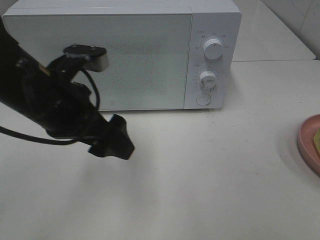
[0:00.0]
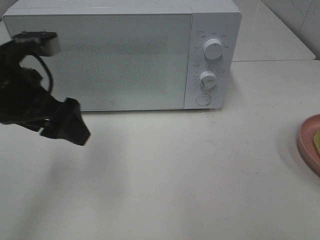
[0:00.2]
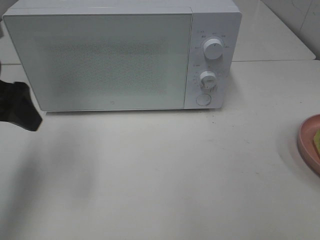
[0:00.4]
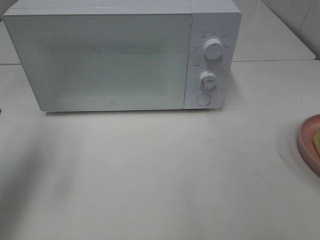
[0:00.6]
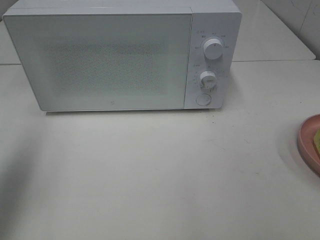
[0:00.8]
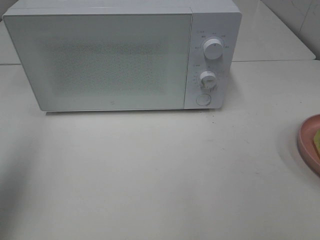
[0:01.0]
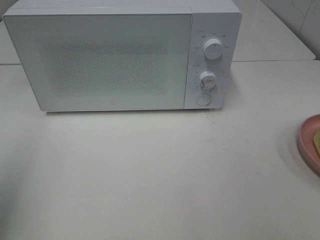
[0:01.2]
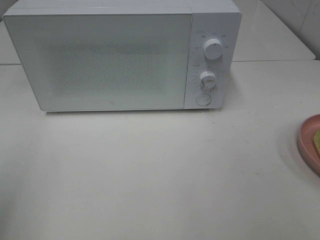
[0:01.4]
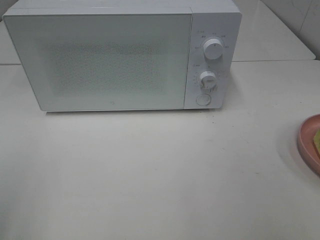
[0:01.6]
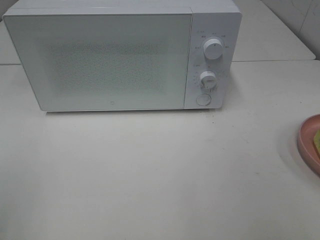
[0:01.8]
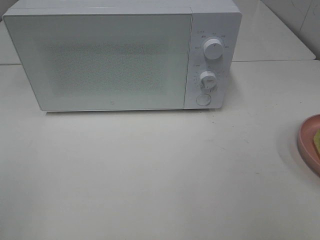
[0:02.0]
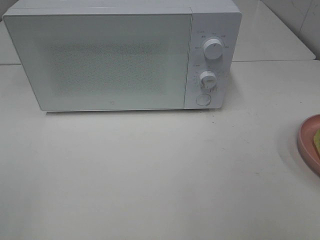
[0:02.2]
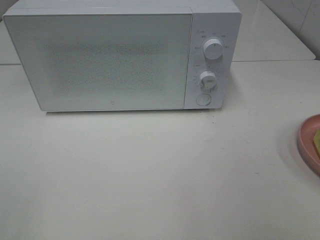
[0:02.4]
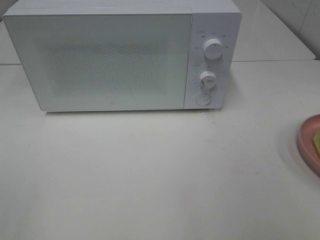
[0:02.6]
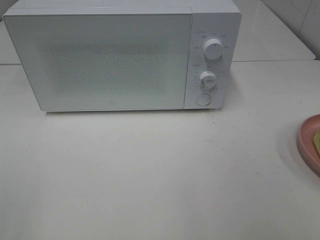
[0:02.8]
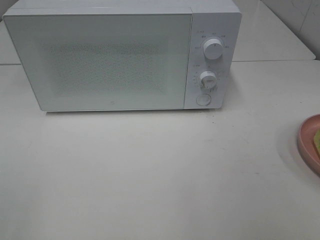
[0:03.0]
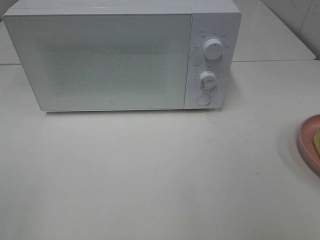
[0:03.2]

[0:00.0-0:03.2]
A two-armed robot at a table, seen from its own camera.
Task of the whole recording: Heat Sandwich.
0:00.0 to 0:01.6: The left gripper is displaced to the left, backward and upward by roughly 25 cm.

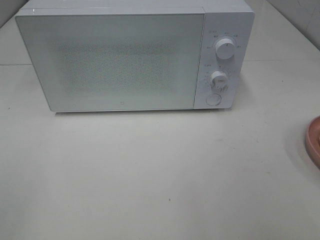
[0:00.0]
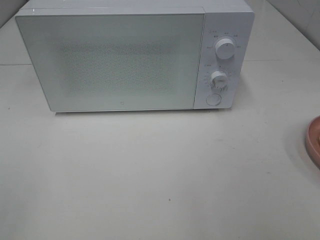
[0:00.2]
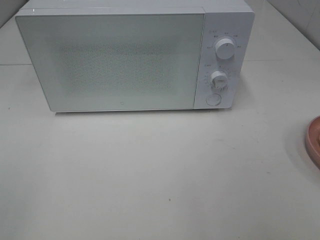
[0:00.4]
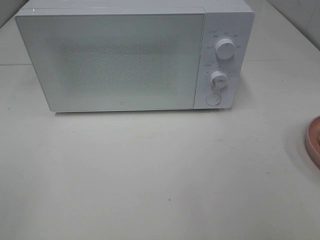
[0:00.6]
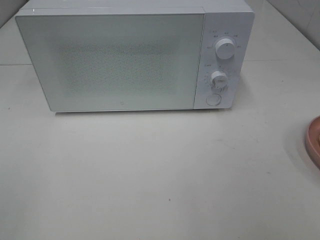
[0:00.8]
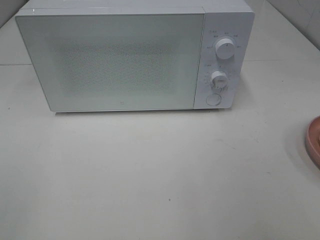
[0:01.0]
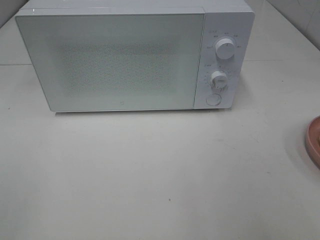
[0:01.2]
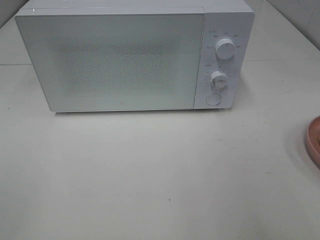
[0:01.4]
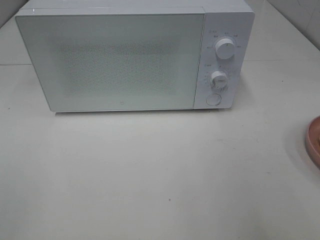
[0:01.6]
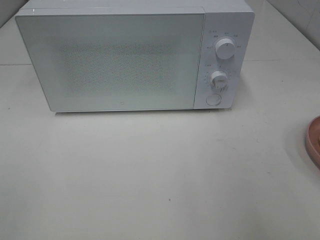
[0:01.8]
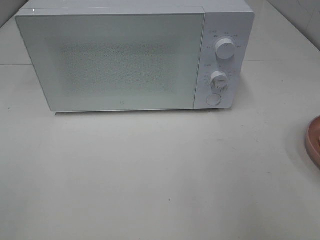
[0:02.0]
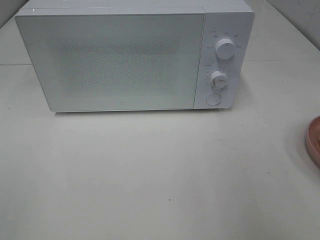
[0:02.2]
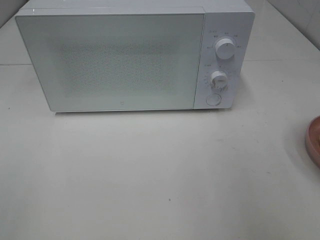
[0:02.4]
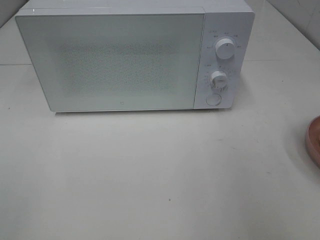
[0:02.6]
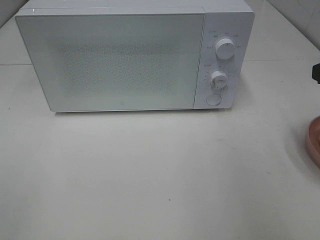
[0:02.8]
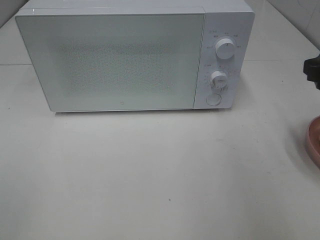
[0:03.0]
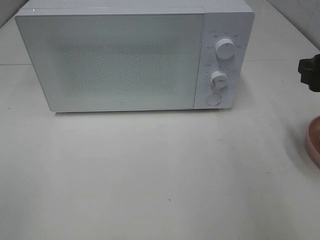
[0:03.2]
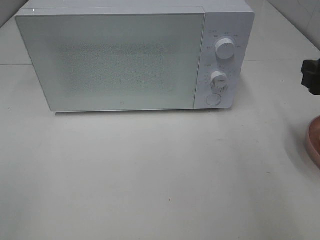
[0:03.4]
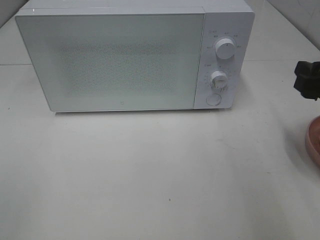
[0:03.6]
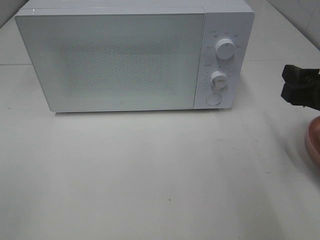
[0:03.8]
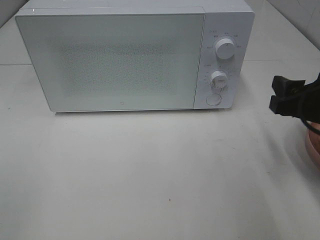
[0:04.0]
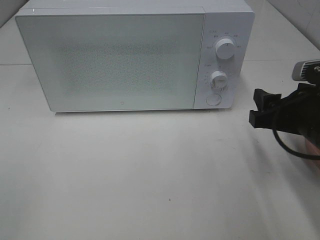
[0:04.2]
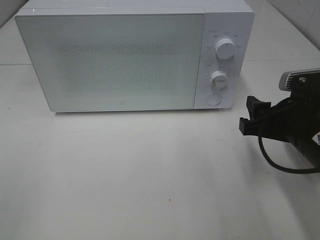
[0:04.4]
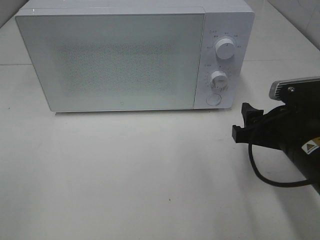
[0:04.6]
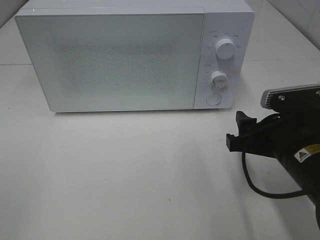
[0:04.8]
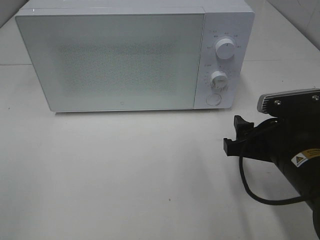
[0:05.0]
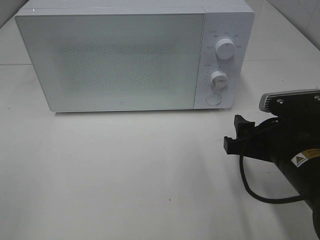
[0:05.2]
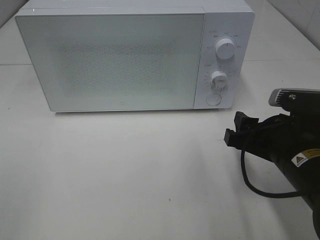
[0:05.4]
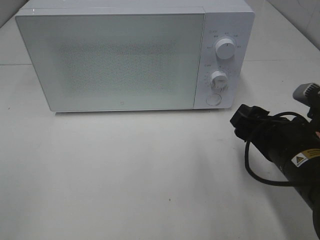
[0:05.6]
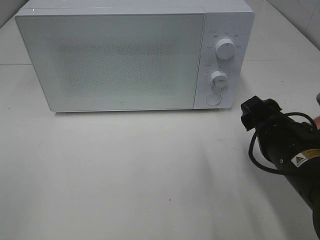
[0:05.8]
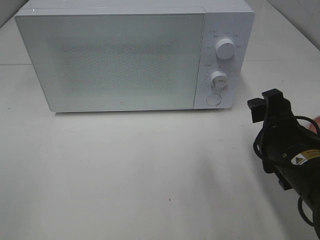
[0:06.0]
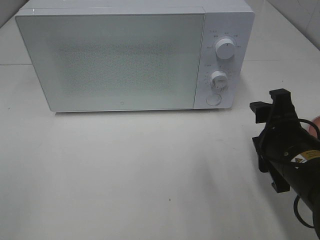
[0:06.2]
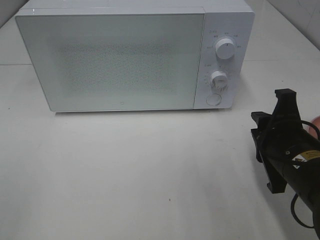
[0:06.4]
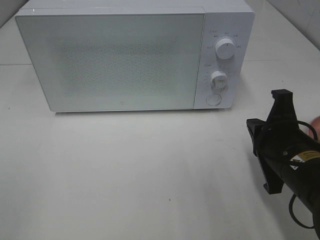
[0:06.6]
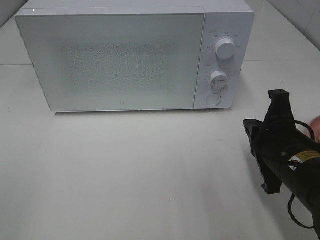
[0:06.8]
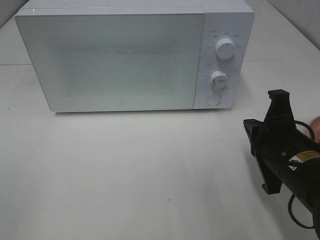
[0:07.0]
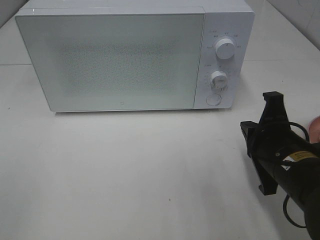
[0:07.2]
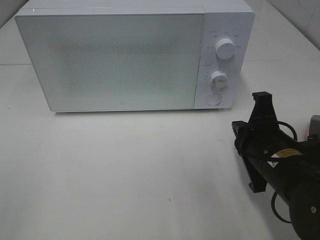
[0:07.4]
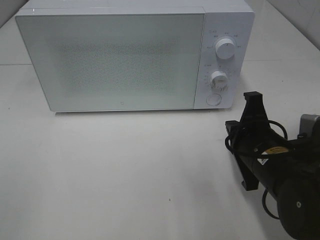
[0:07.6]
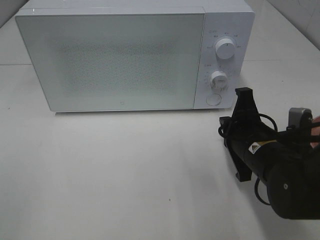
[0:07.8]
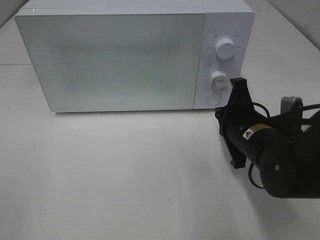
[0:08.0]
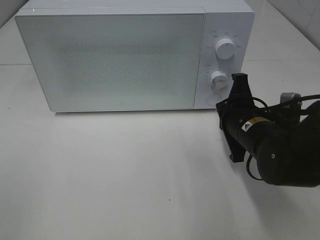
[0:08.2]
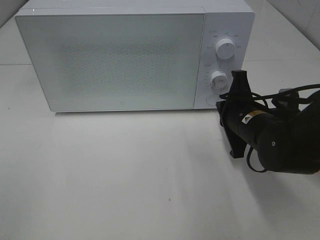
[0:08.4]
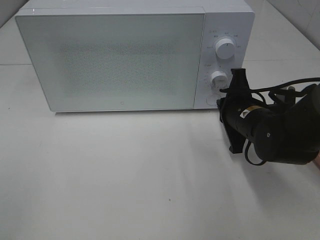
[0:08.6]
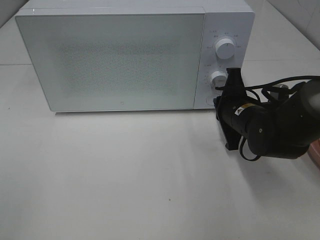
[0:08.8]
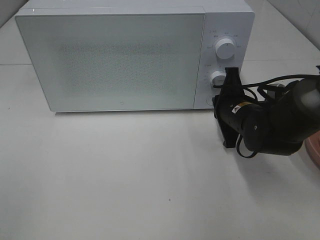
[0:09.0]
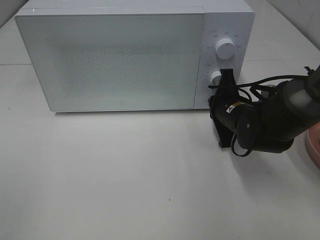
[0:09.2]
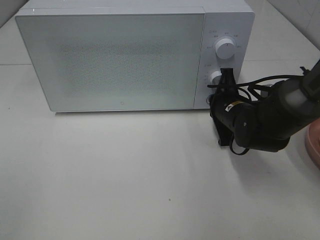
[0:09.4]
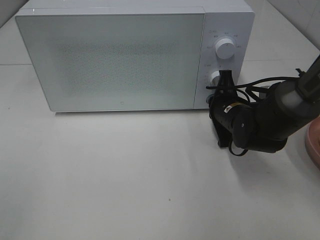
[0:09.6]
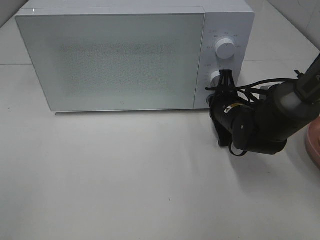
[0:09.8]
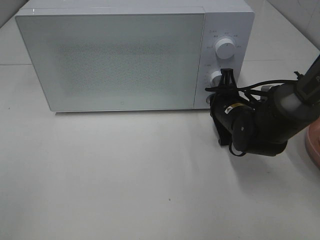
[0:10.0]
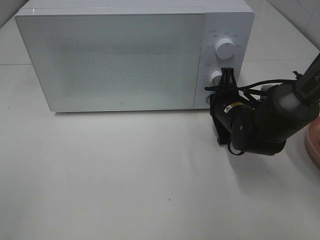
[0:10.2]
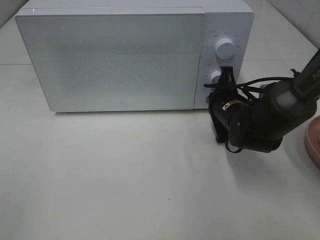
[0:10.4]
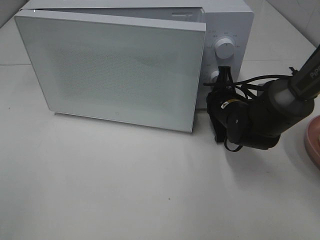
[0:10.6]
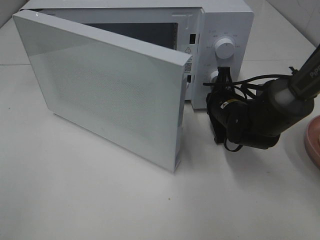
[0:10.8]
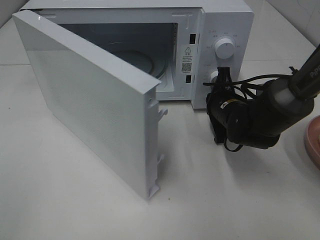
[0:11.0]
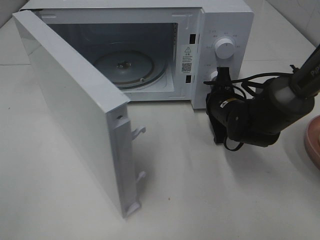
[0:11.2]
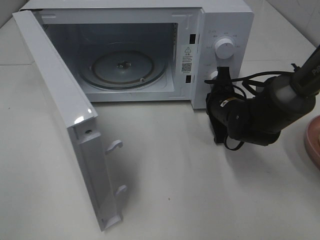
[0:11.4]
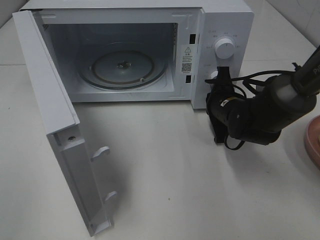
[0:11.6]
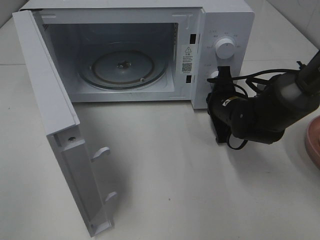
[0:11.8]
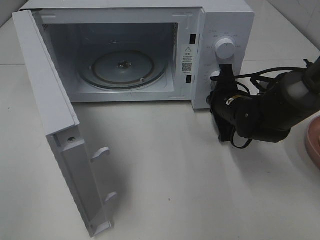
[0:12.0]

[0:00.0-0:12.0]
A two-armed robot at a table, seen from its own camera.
Task of the whole recording: Heat Sandwich.
0:01.6 to 0:03.0: The right gripper moves forward, about 15 cm.
0:03.0 to 0:04.4: The right gripper moves downward and to the left, about 10 cm.
0:06.0 to 0:07.6: The right gripper closes.
0:07.6 to 0:09.0: The right gripper heads forward, covering about 10 cm.
0:09.0 to 0:10.4: There are only small adjustments of the grippers.

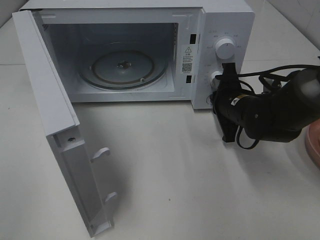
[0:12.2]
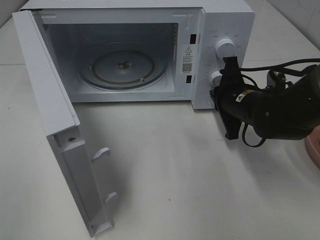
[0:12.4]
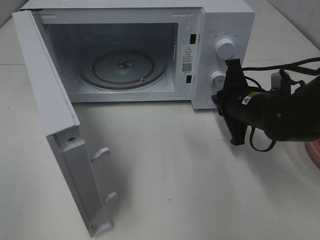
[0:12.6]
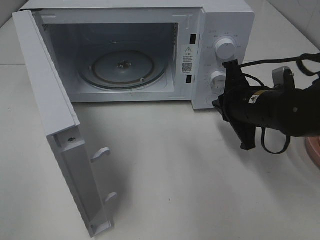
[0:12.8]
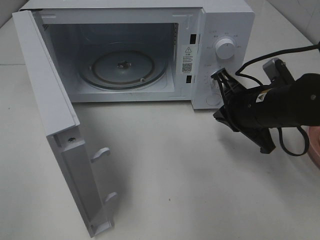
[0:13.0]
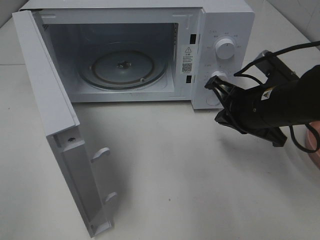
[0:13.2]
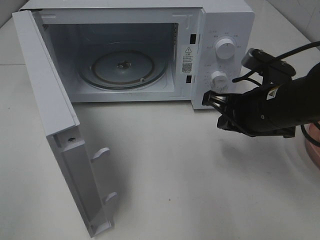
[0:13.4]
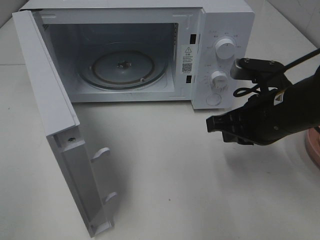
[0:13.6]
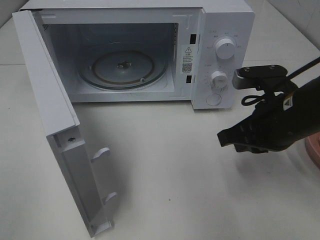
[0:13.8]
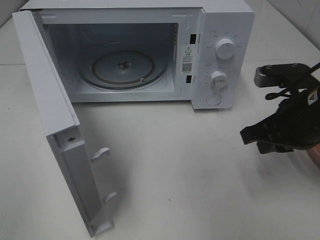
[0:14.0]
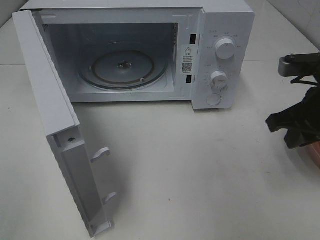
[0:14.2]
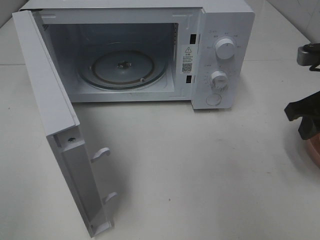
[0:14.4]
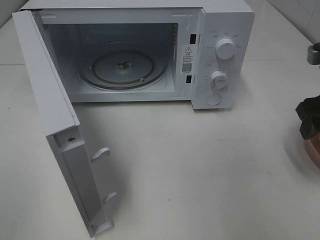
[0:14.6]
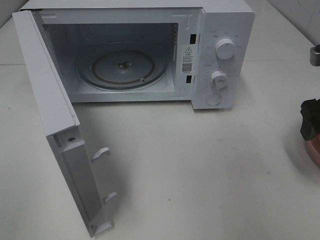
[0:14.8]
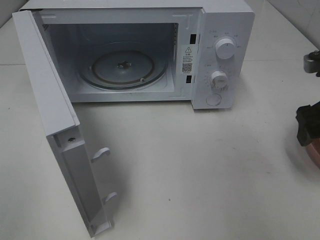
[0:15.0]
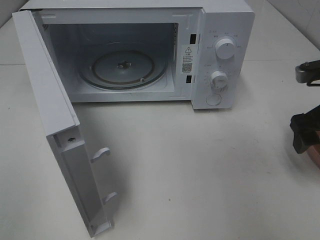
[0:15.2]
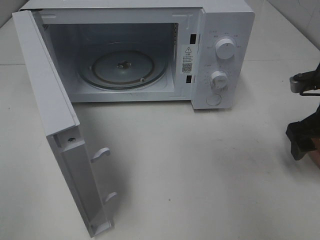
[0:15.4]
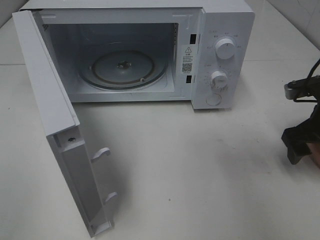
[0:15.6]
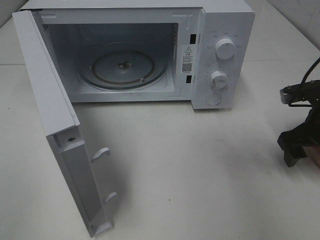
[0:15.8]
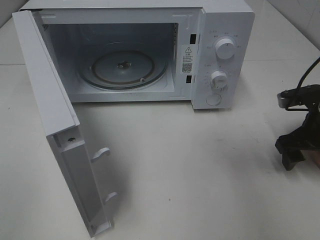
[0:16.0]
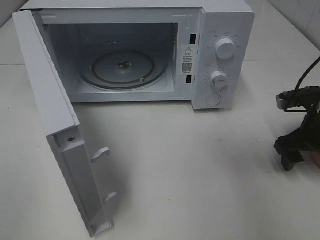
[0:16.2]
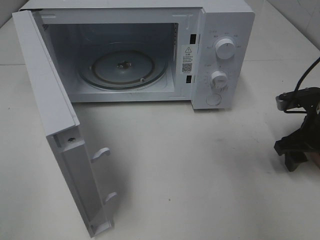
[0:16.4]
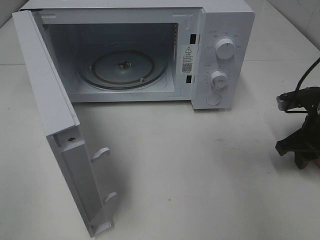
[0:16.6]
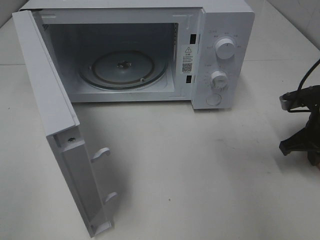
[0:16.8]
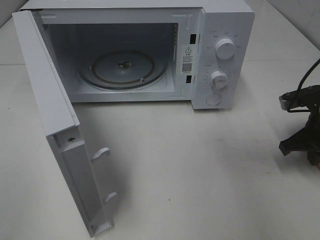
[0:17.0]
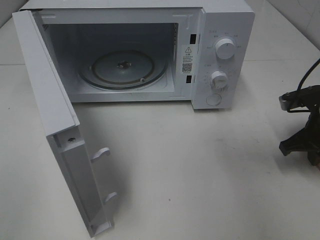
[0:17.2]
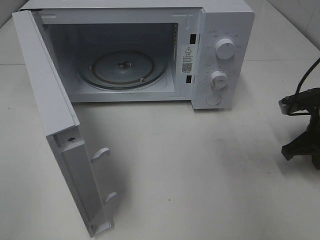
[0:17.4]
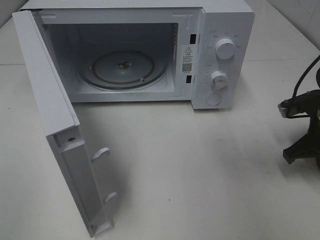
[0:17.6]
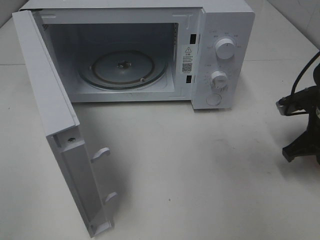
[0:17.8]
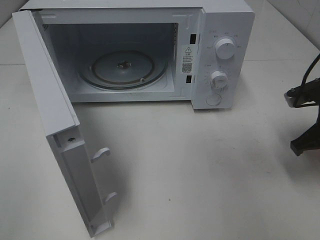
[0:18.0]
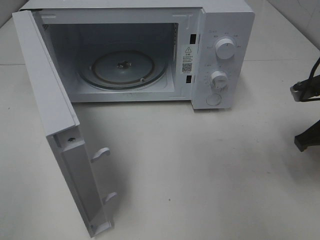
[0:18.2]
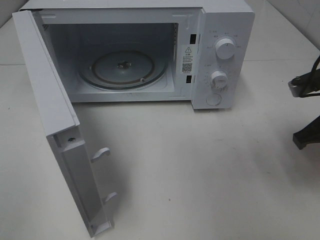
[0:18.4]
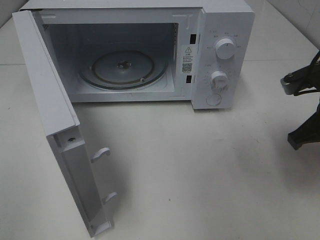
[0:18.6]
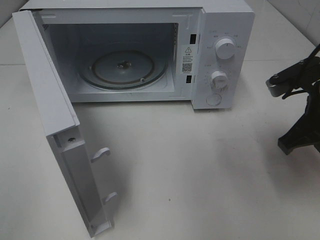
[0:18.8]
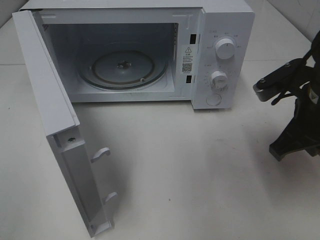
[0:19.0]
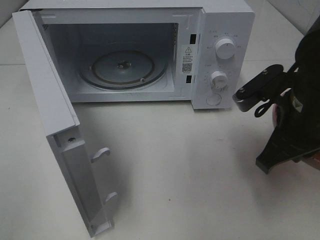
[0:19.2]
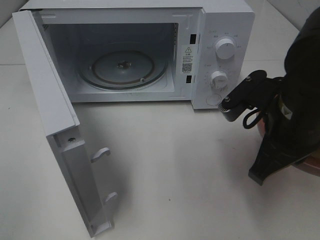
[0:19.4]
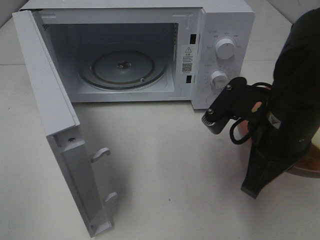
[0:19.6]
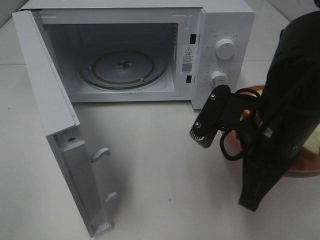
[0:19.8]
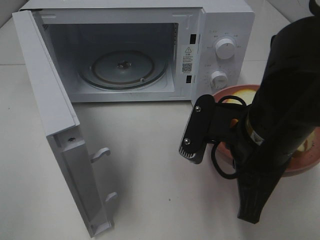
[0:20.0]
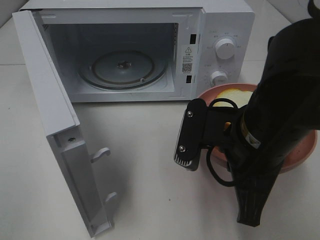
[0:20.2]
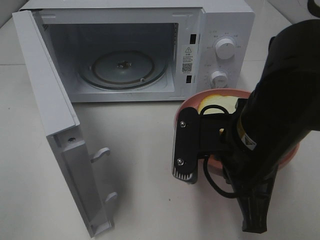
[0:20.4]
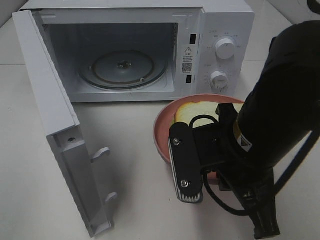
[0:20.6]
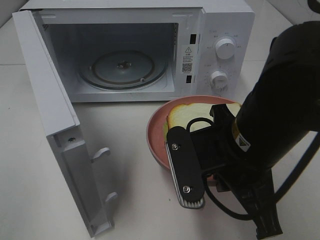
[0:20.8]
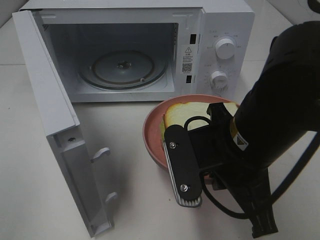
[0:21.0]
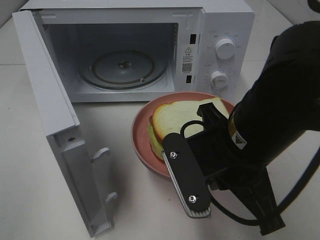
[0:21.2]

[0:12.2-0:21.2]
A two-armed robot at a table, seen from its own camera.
Task of the whole recording: Heat Sandwich.
Step, 0:12.8 to 0:17.6: Right hand: grab the plate with the sandwich.
0:12.2 to 0:13.8: The right gripper is displaced backward and upward by about 15 cm.
0:13.8 to 0:15.2: The right gripper moves to the right, roughly 10 cm, and opens its fingers.
0:15.2 to 0:16.6: The right gripper travels downward by roughly 5 cm, and closes.
0:16.6 to 0:18.2: The right gripper shifts by roughly 5 cm, and closes up.
0:18.2 to 0:19.8: The right gripper heads to the left and backward, covering roughly 20 cm.
